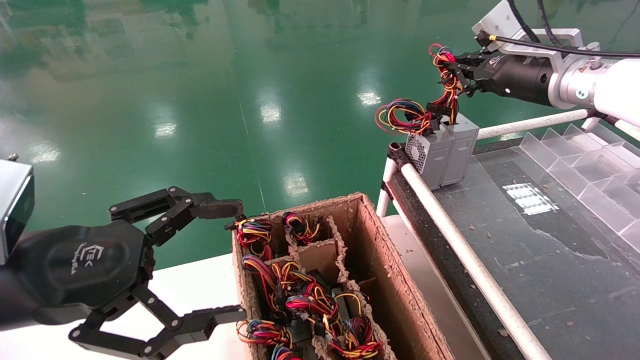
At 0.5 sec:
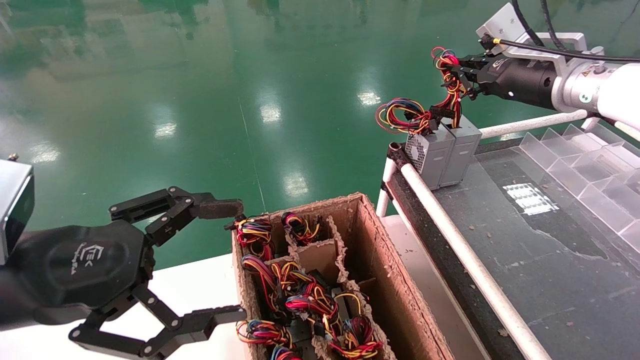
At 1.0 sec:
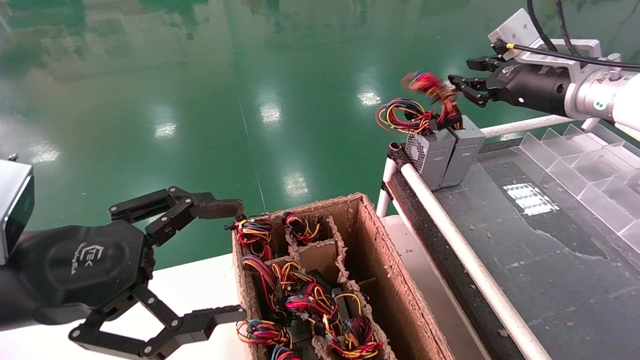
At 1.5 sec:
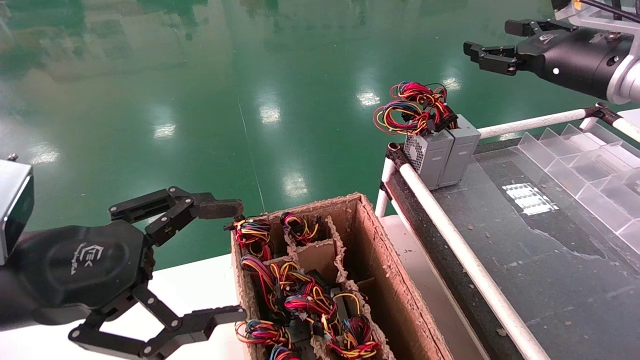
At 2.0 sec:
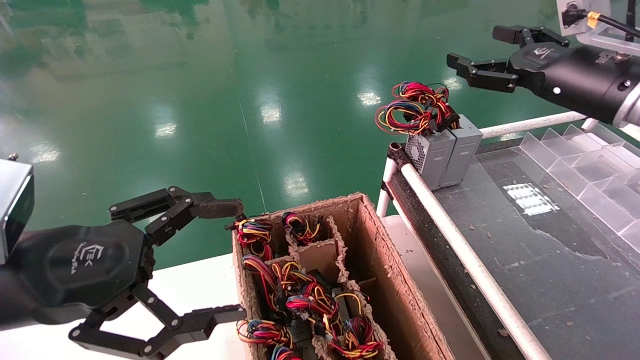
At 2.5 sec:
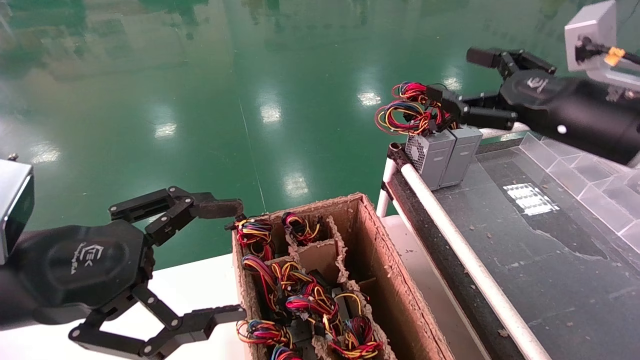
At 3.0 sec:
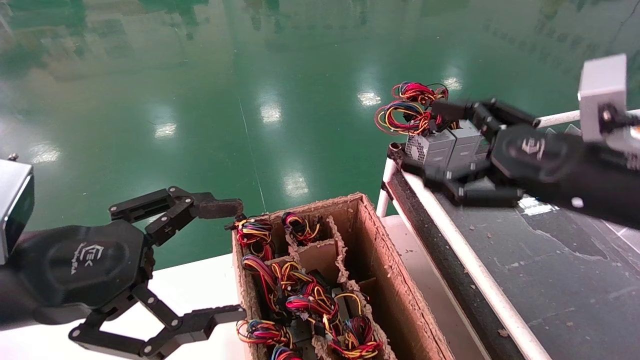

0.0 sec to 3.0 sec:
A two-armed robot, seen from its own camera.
0.0 sec to 1.5 sec: The right gripper opens.
1.5 sec to 3.0 sec: The right gripper travels backward and downward by some 20 cm, and opens its fingers.

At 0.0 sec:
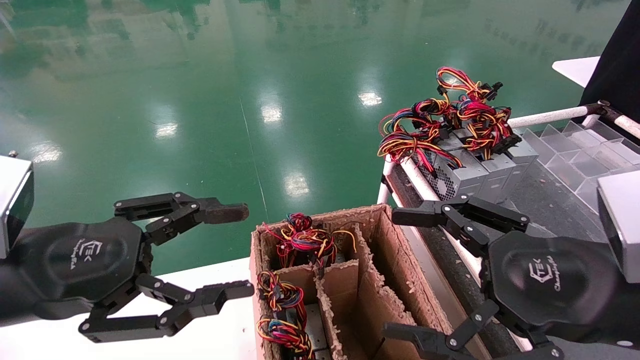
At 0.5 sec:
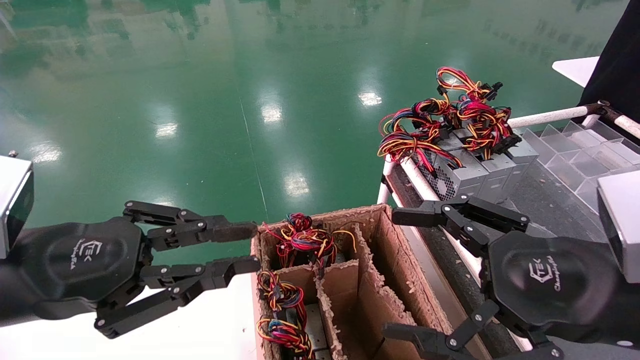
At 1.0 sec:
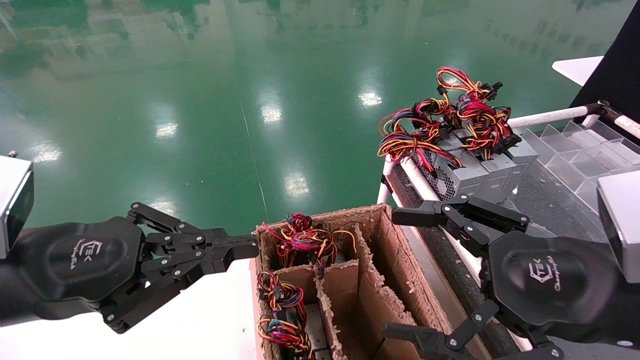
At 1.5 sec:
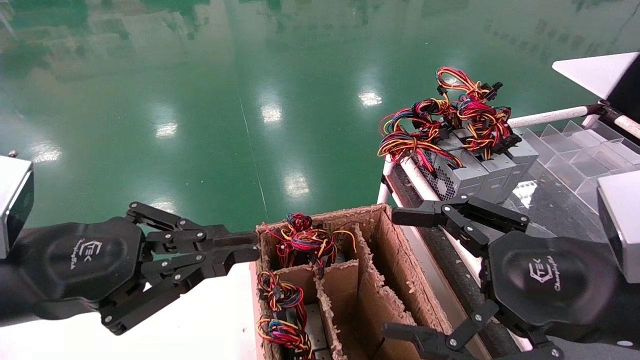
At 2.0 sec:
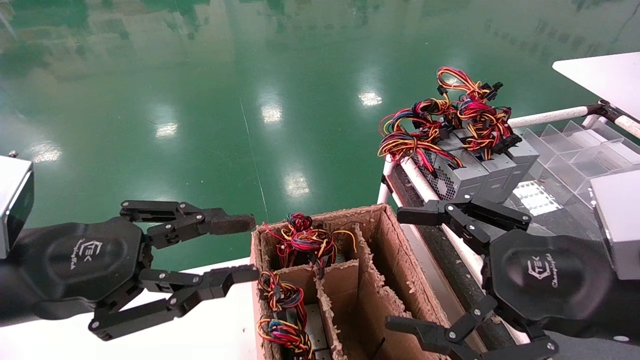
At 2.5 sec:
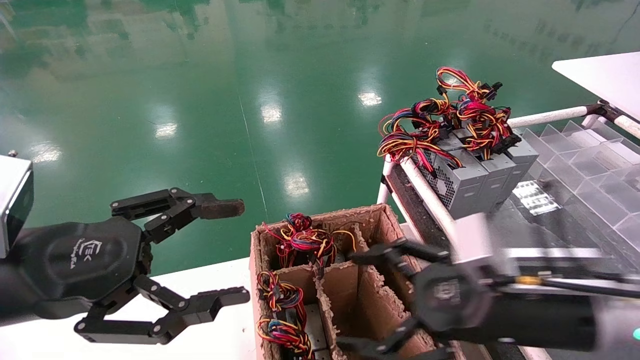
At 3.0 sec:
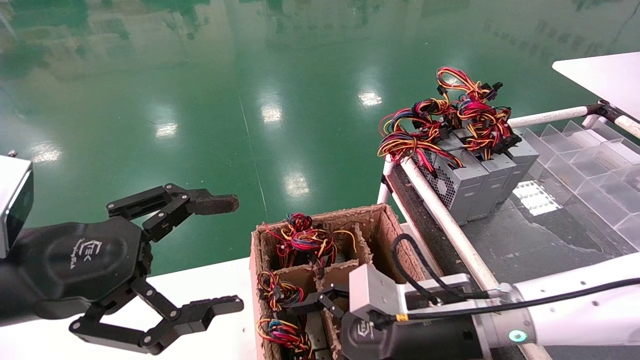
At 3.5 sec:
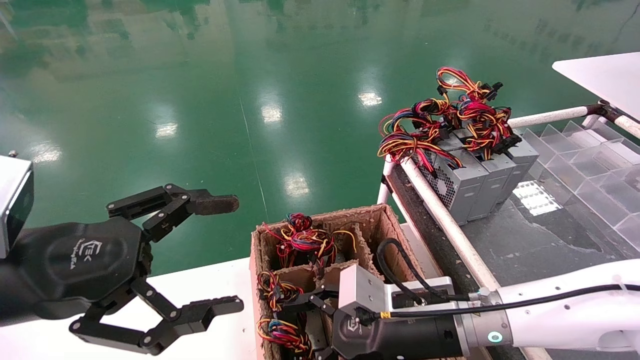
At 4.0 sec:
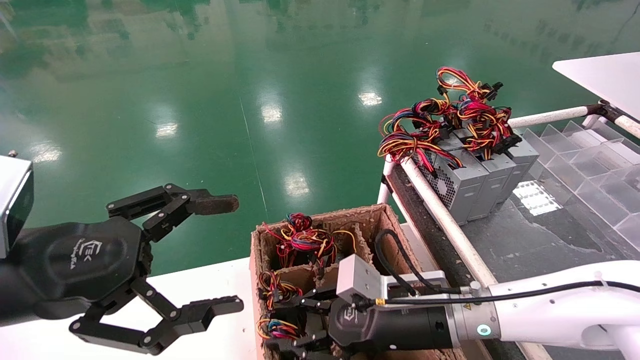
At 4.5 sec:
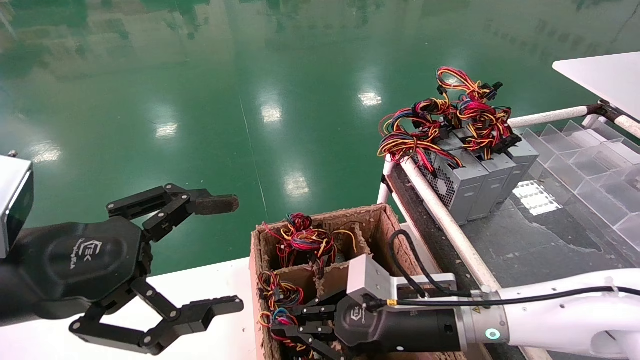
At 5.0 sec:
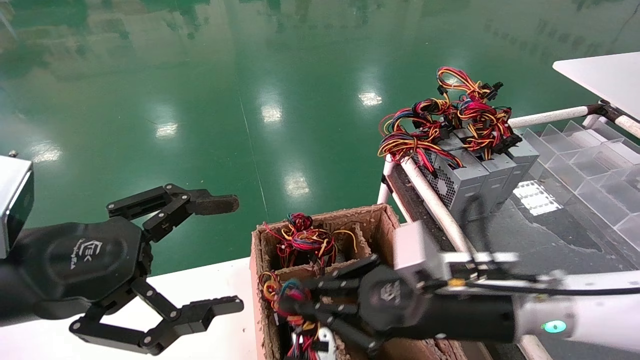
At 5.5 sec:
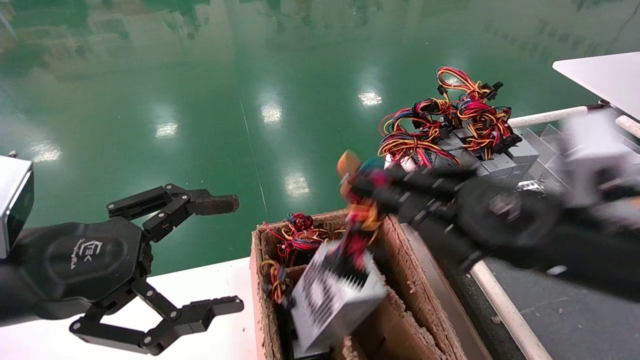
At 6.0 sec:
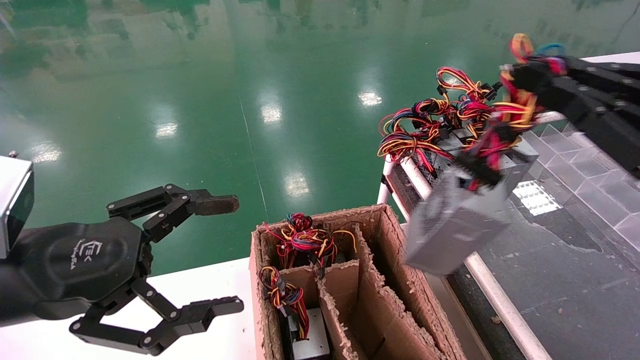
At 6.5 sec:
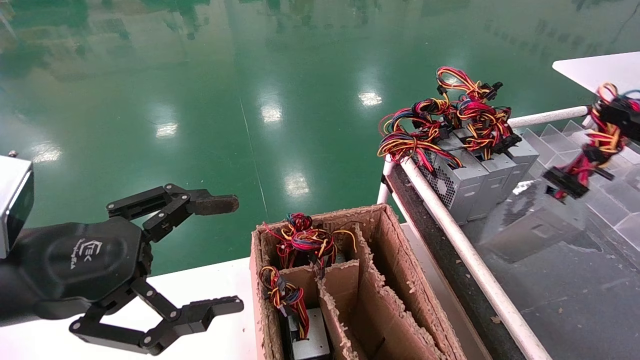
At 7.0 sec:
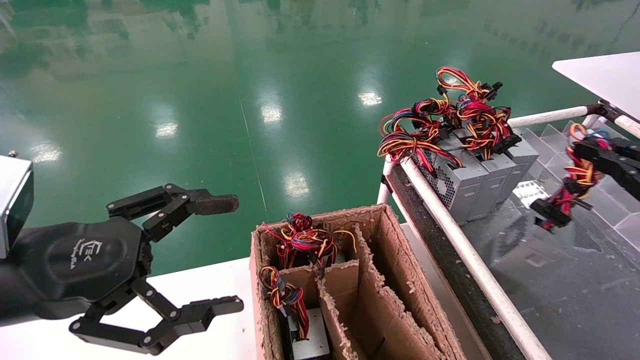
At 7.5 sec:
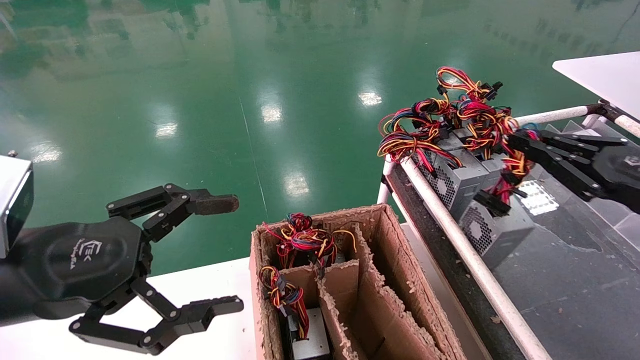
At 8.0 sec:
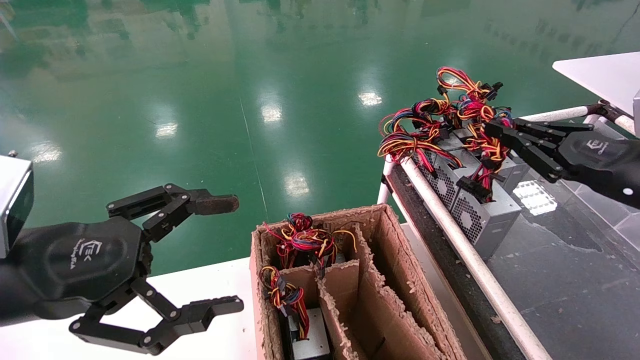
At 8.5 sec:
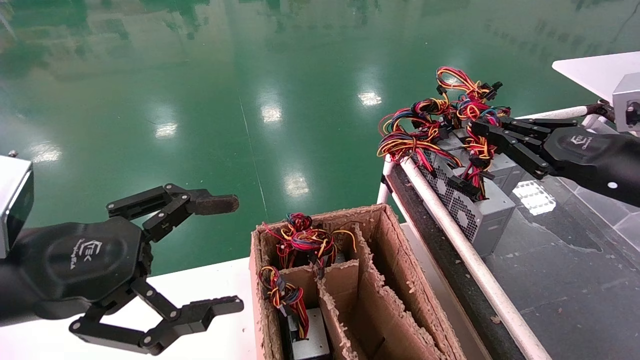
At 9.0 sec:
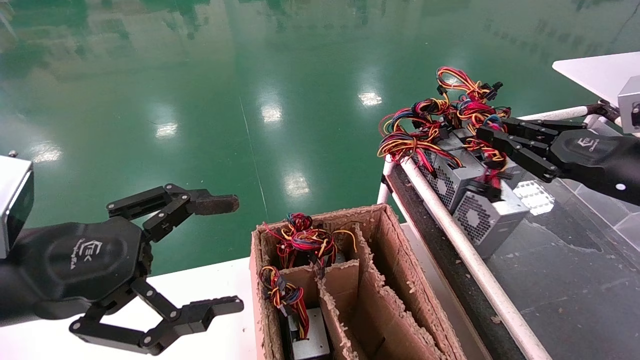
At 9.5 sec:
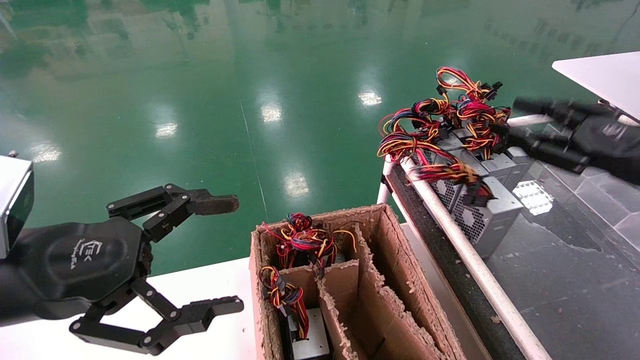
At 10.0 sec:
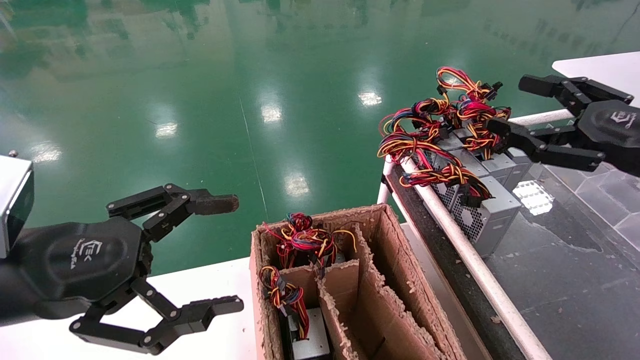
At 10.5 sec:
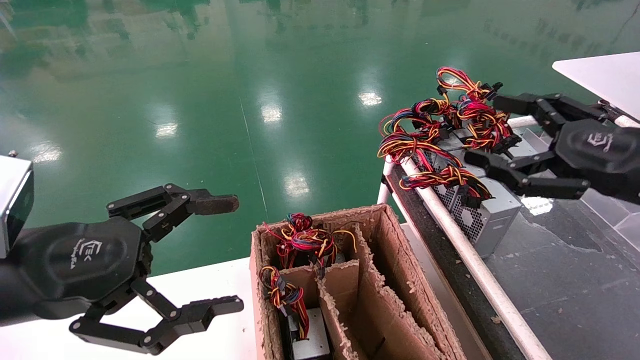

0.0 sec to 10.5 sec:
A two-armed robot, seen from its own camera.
Step, 1.5 sec to 4.5 sec: Grab and lift the power supply from the large box.
Step, 5.0 sec to 9.0 sec: Place the power supply on the operating table.
0.0 sec to 2.0 sec: The left gripper closes its fingers.
2.0 sec to 4.0 sec: The left gripper opens. Meanwhile the right gripper goes approximately 20 cm to the left, downward and forward, and closes.
4.0 sec to 6.5 sec: The right gripper shifts some 35 cm to the right and upward, and closes.
6.5 sec to 8.5 sec: The right gripper heads forward and to the left, covering approximately 15 cm.
8.5 sec to 10.5 sec: The right gripper moves some 5 cm, and opens its fingers.
